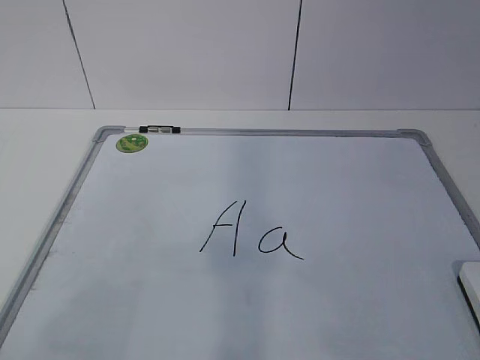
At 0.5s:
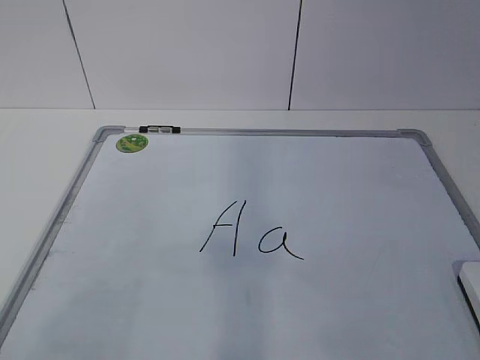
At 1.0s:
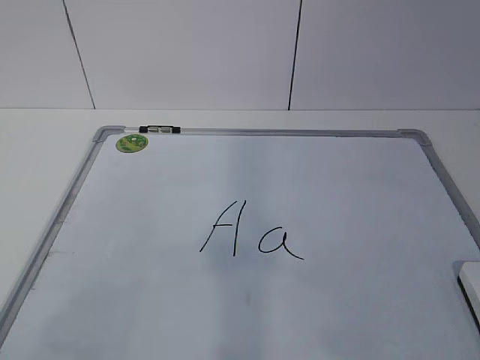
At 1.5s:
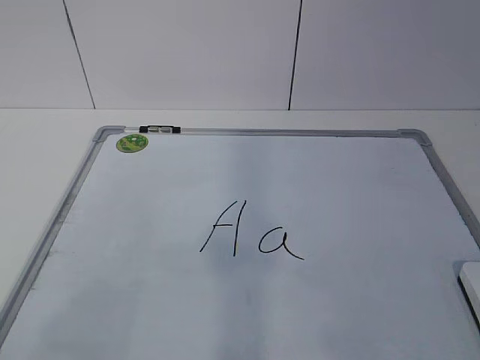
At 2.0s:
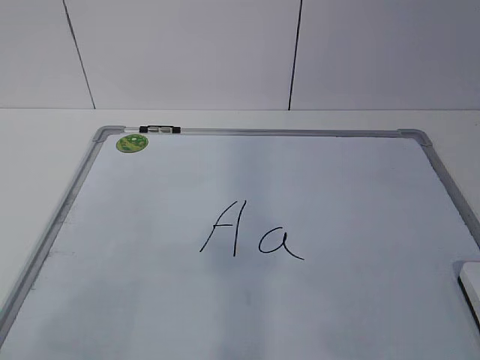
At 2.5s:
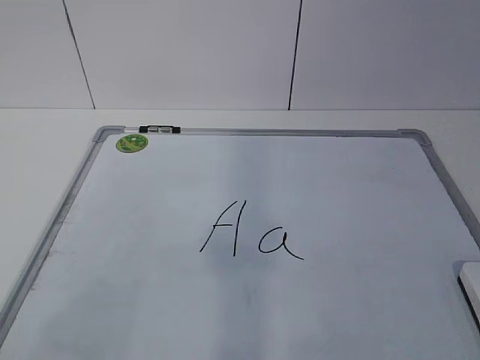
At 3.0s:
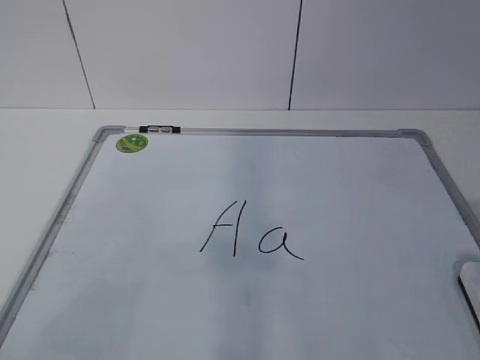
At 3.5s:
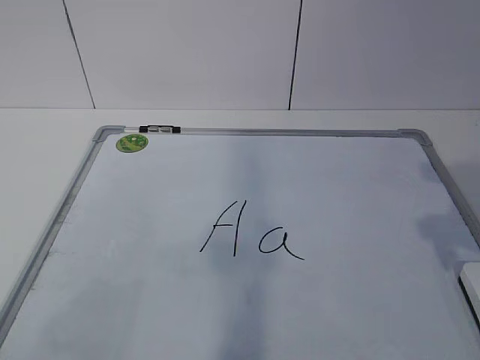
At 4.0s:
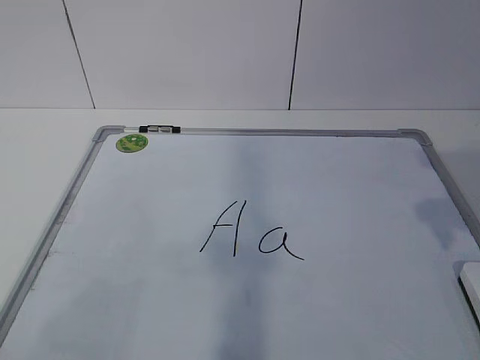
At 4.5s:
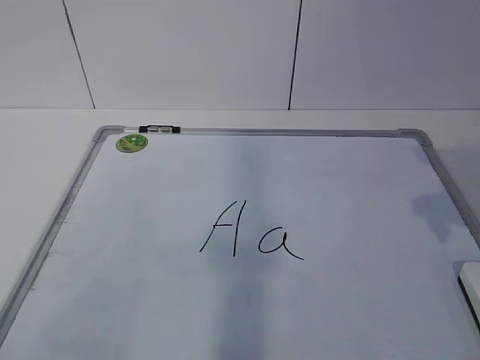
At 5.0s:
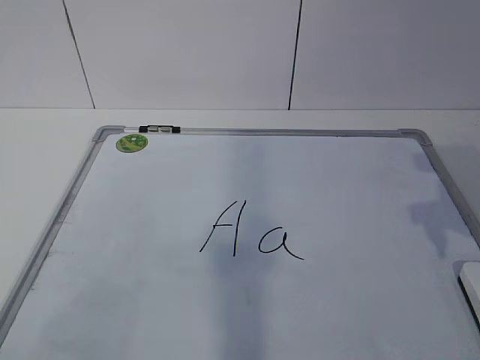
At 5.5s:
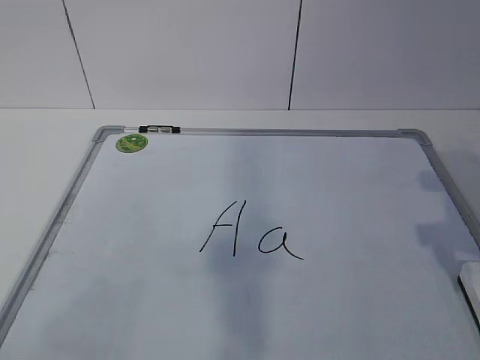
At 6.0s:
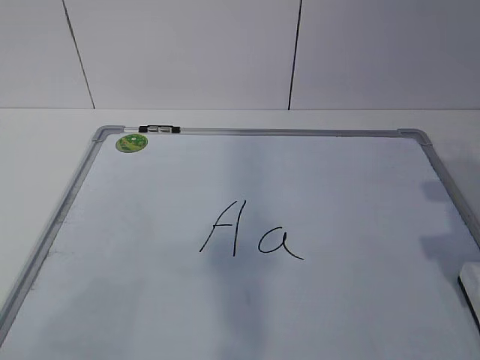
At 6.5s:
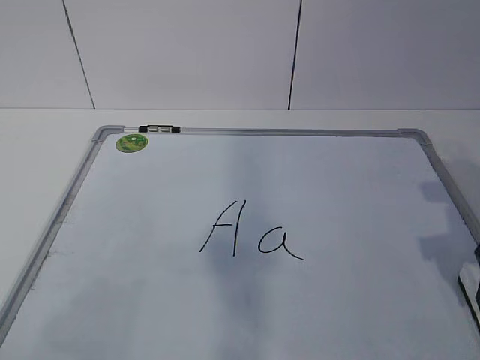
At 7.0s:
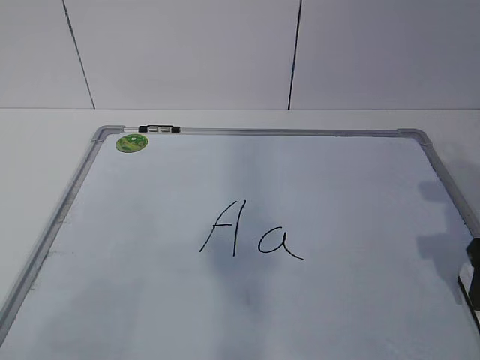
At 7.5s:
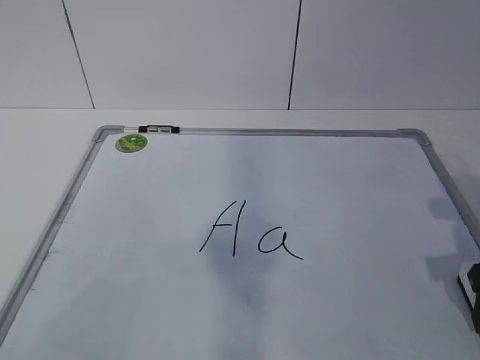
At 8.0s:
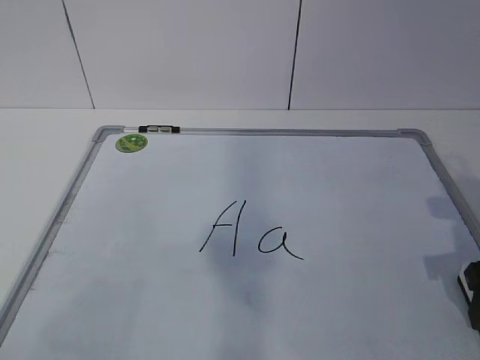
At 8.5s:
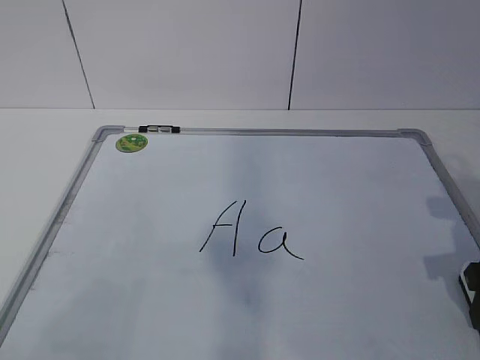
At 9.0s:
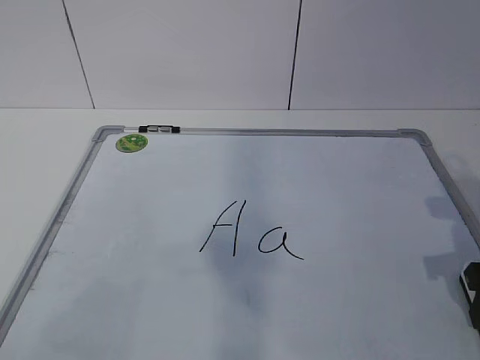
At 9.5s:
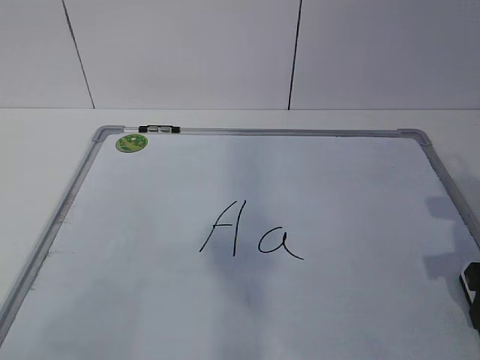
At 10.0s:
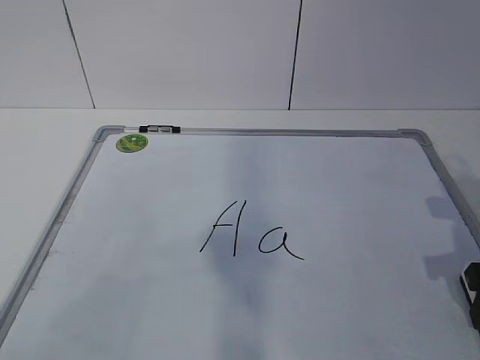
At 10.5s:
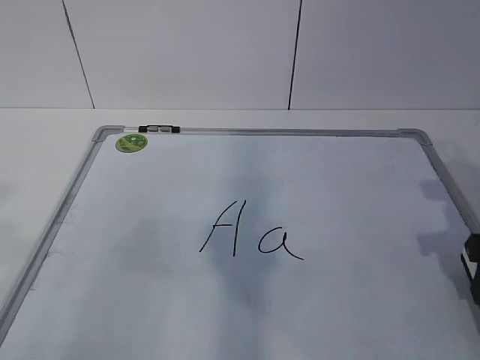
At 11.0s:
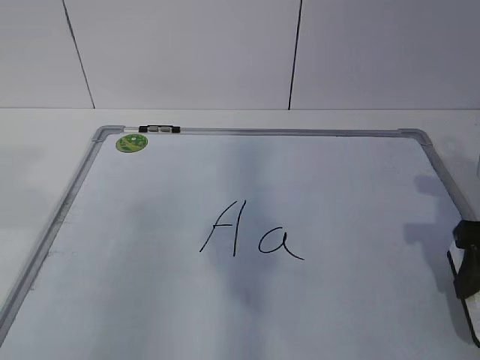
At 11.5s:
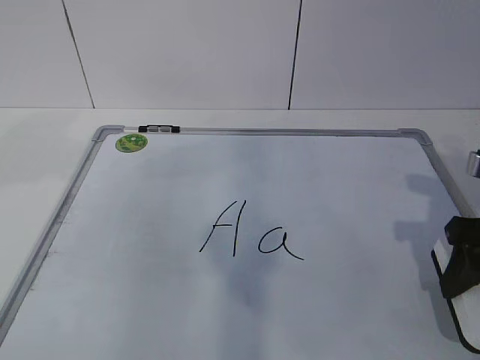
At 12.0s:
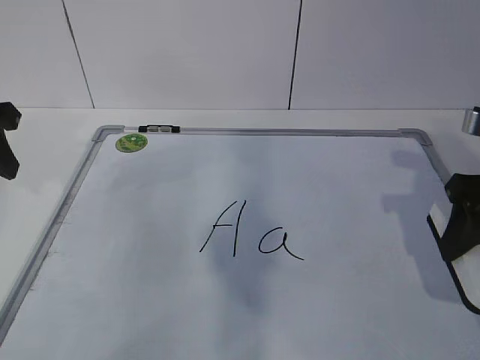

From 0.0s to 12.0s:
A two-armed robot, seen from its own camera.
Task of the whole recording: pick up the eraser on the blackboard and erase the letter "a".
From 4.0s to 6.0s: The right gripper moves downward, about 5 cm.
From 10.0s to 12.0s: The right gripper moves upward, approximately 5 cm; the left gripper travels forward by roughly 30 cm.

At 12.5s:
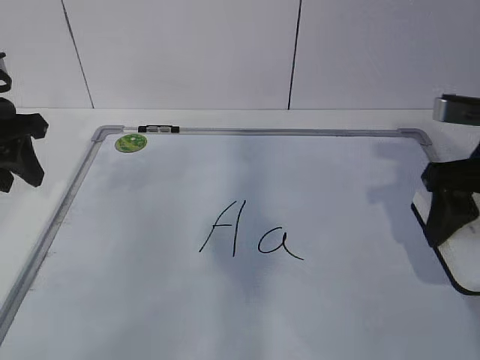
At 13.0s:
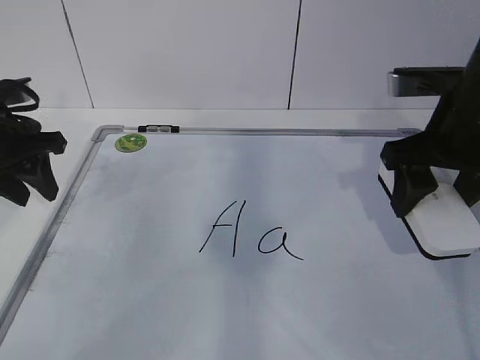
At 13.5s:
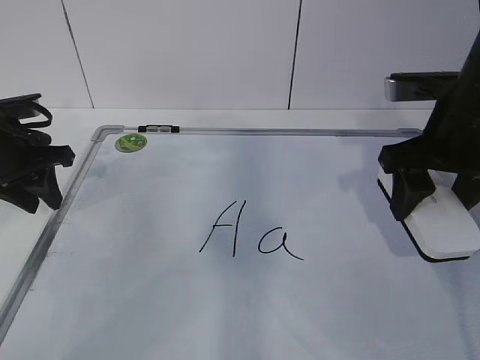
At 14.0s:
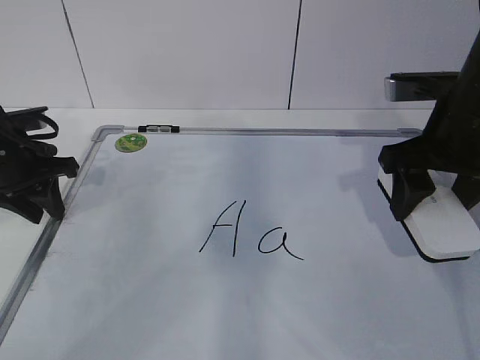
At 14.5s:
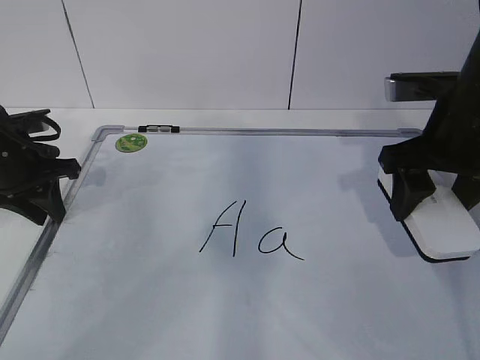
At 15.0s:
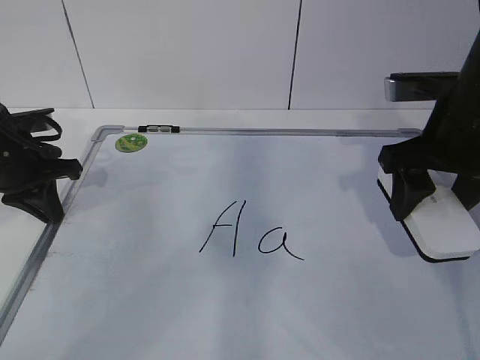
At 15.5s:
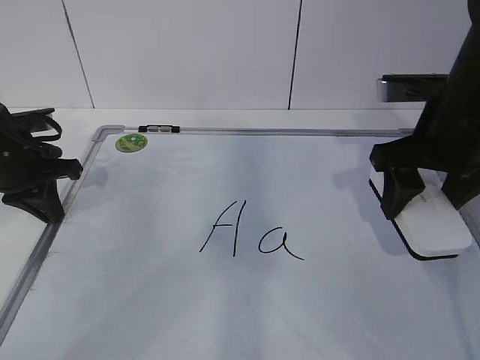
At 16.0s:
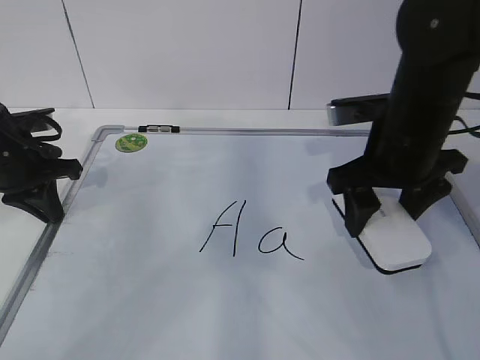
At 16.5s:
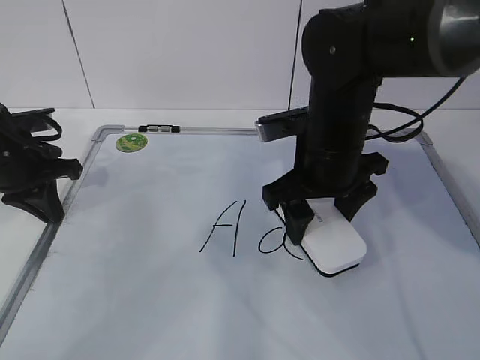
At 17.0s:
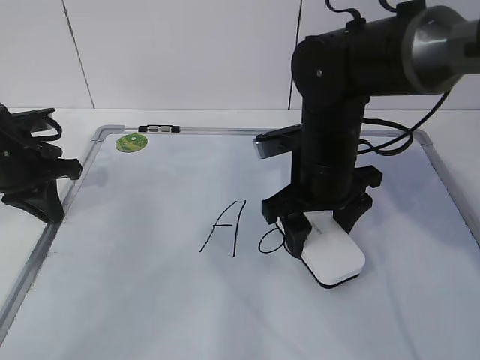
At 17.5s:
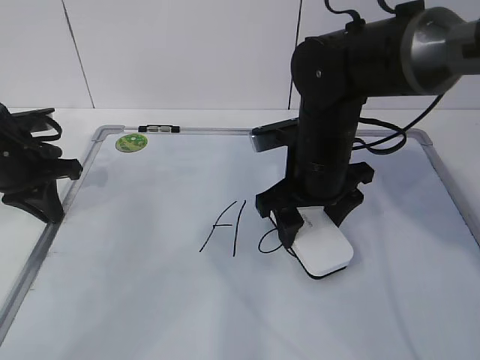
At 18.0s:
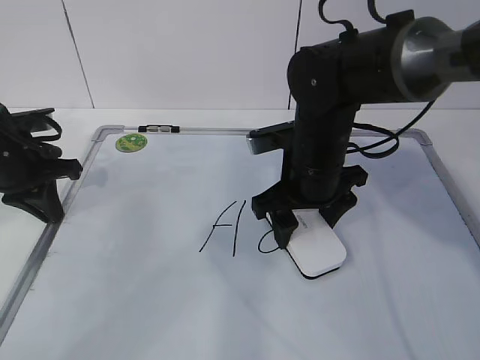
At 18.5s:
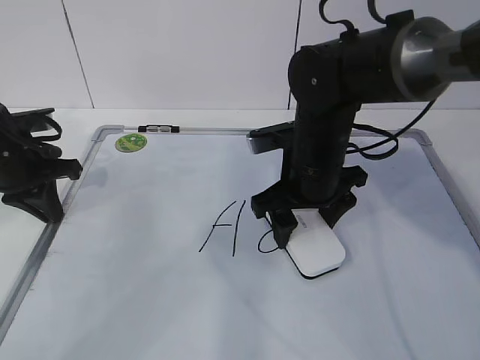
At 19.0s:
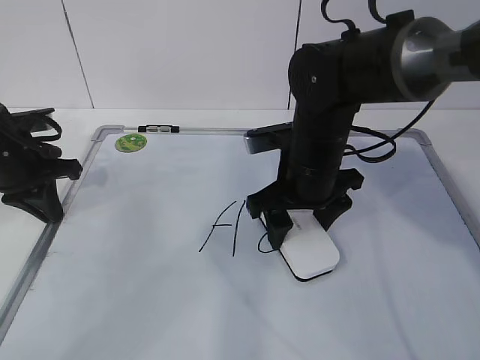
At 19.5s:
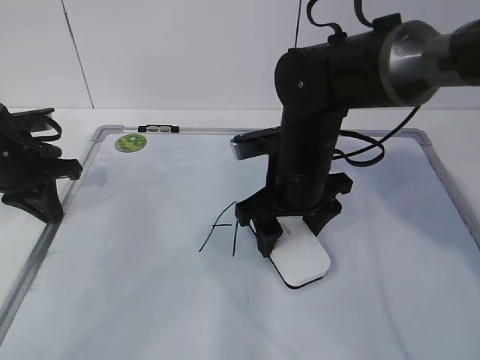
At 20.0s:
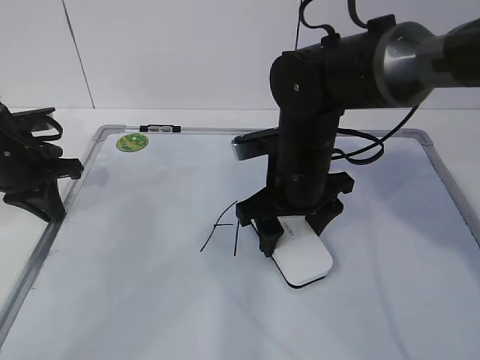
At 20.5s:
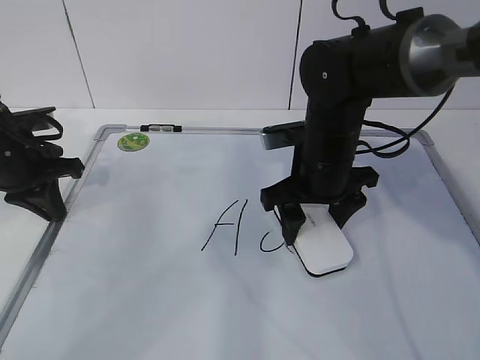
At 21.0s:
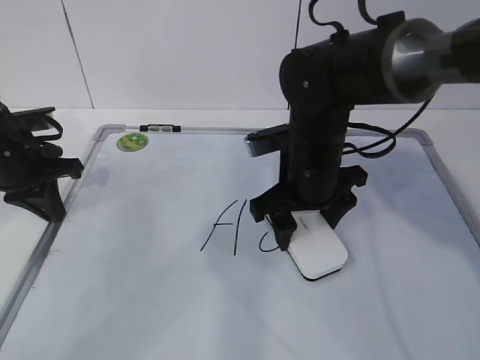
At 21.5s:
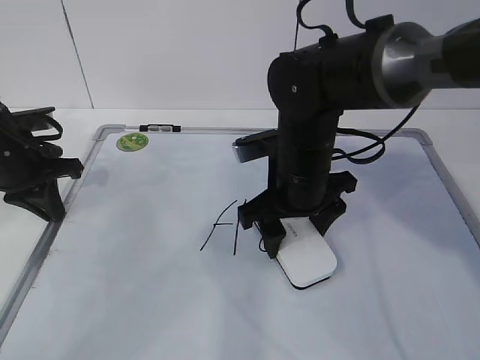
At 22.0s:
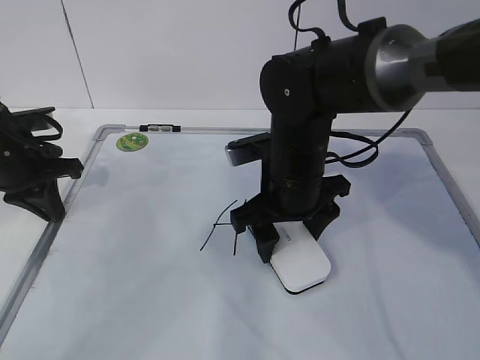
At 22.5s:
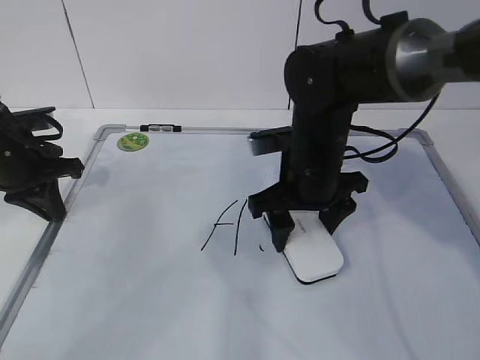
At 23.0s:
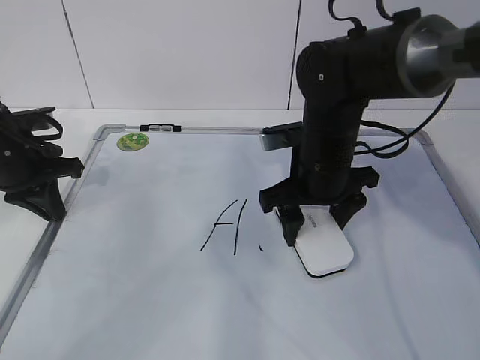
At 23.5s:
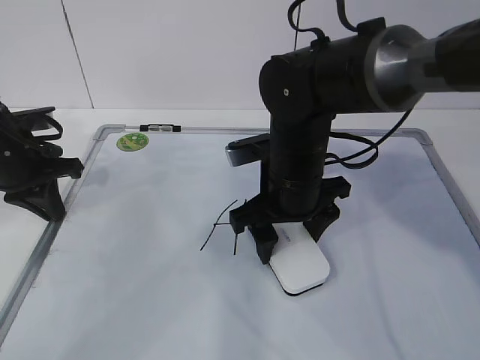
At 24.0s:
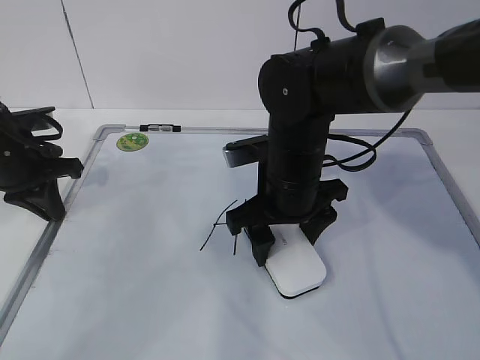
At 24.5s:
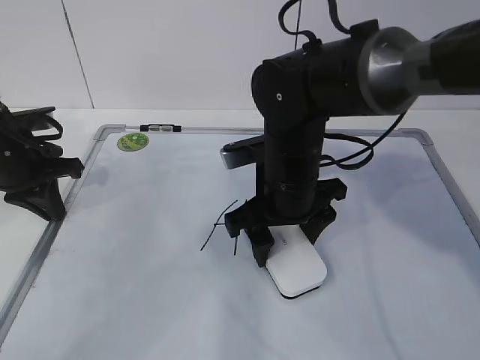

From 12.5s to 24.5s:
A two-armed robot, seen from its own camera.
Task of the whole recording: pick up the eraser on the blackboard and erase the letter "a".
Step, from 12.5s to 21.0s: Erase the letter a with your right hand.
From 12.5s to 14.5s: The left gripper moves downward, about 10 cm.
From 14.5s to 16.5s: The left gripper closes; the right gripper travels to the left by roughly 10 cm.
From 16.5s to 24.5s: The grippers move only a little.

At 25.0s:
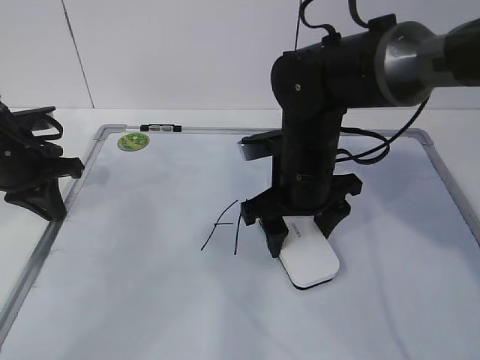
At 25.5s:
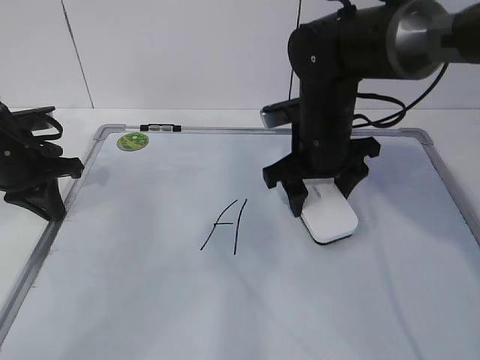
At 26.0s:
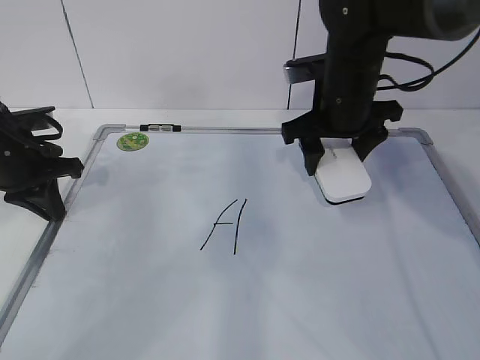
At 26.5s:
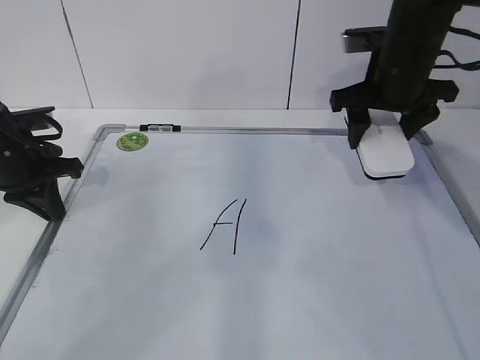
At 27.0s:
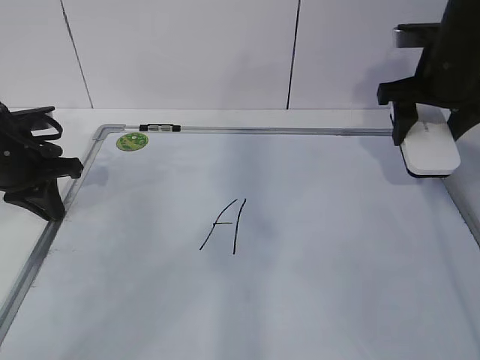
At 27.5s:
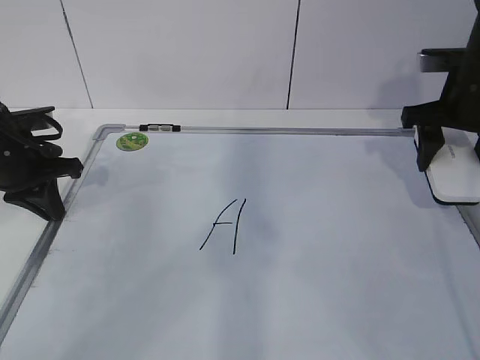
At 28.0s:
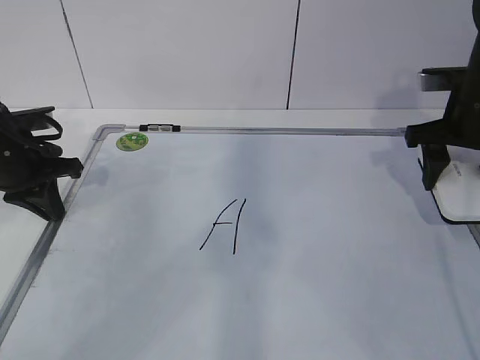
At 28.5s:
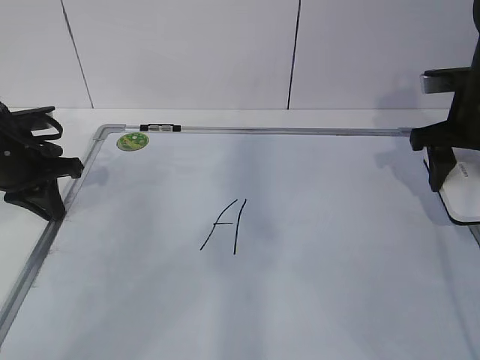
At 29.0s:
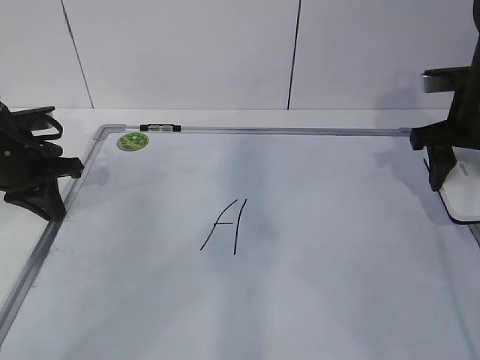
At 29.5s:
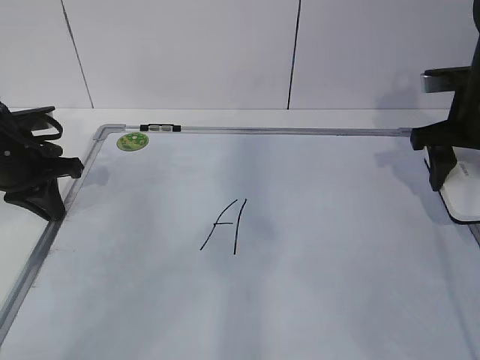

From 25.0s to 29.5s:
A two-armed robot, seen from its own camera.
Task of the whole recording: pick up the eraser on the blackboard and erase the letter "a".
From 25.0s to 27.0s: The right gripper shifts about 20 cm to the right, upward and forward.
From 27.0s to 29.5s: The right gripper shifts by about 5 cm.
